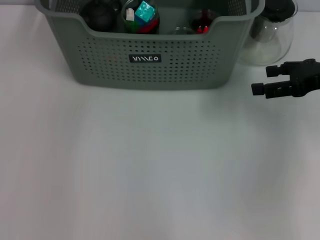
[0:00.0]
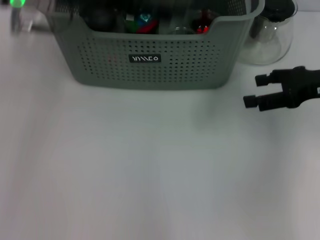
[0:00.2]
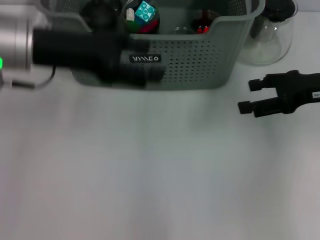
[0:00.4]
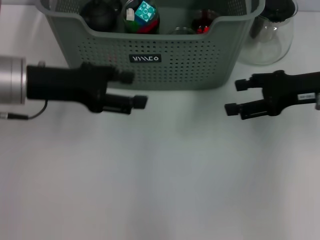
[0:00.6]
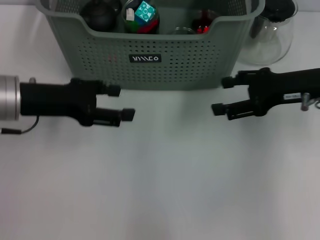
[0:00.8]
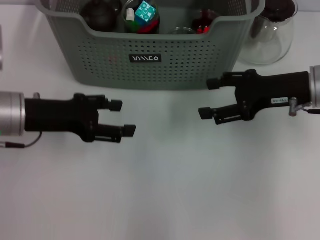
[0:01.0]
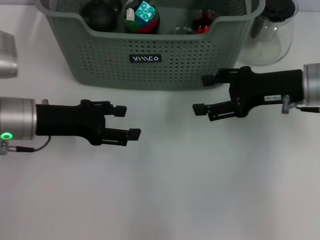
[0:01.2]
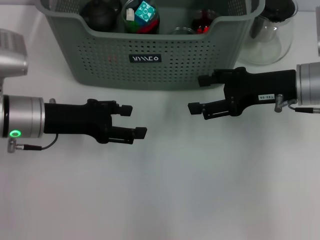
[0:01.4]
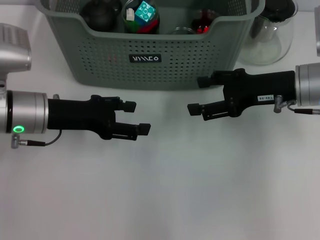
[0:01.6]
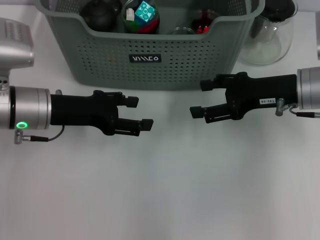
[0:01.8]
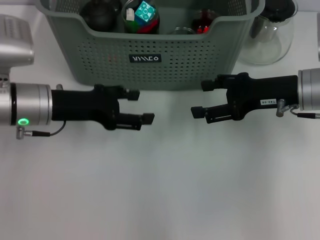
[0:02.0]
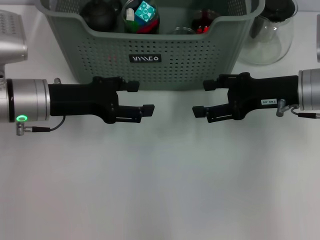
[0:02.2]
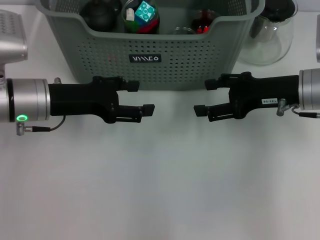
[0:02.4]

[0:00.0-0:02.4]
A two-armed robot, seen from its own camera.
Task of the whole recording: pick up the teacup on the table and place it into the storage bin, pick up the block on the table and place it into the storage bin.
0:00.0 to 0:01.2: The left gripper is displaced downward, backward and to the left by roughly 25 cm. Meanwhile the right gripper shifts about 10 cm to the left.
0:01.2 to 0:02.4: The grippers stay close to where they were, moving slightly.
